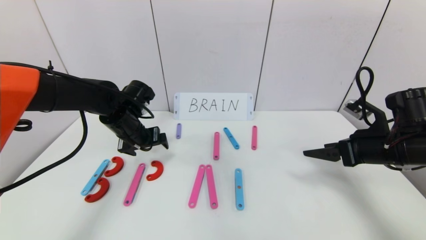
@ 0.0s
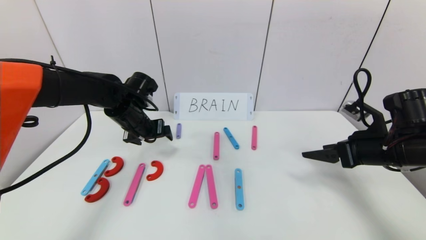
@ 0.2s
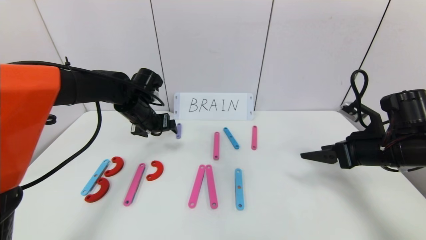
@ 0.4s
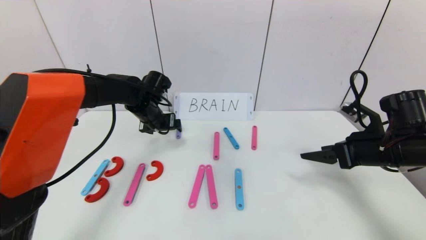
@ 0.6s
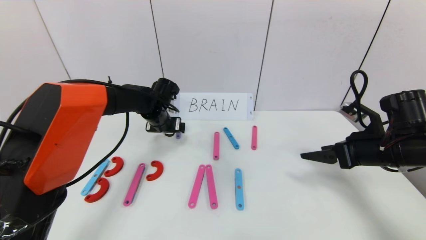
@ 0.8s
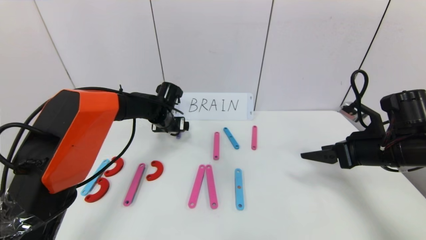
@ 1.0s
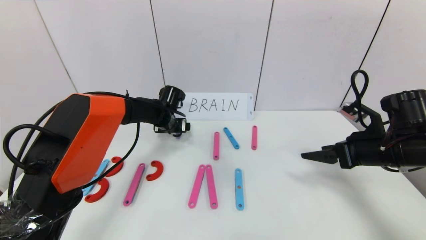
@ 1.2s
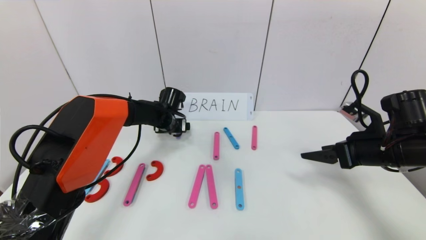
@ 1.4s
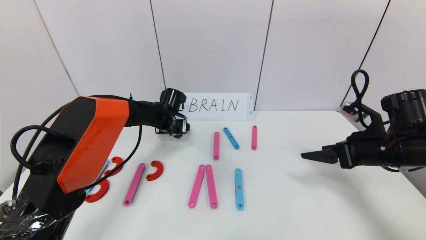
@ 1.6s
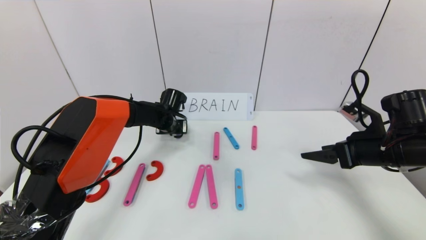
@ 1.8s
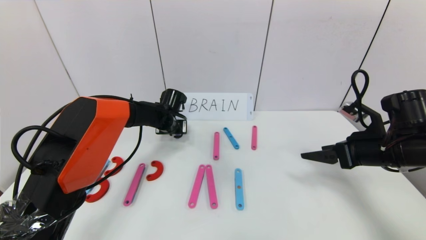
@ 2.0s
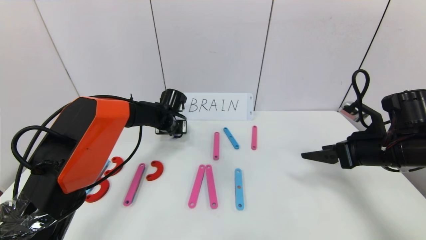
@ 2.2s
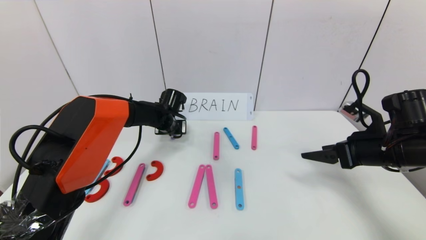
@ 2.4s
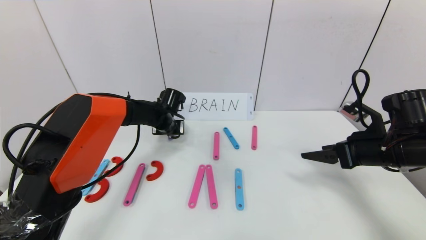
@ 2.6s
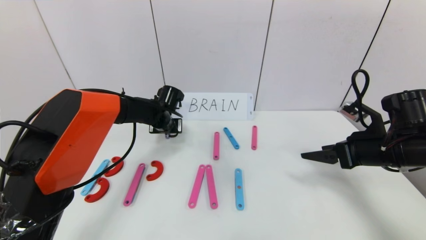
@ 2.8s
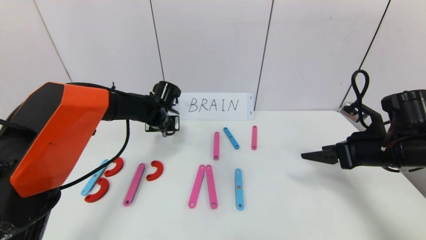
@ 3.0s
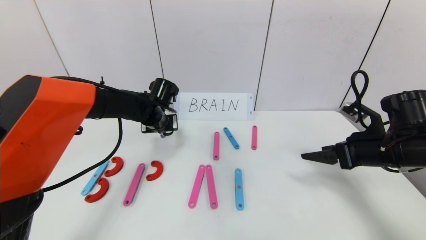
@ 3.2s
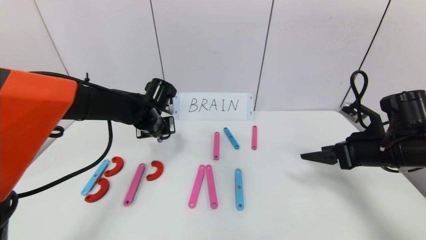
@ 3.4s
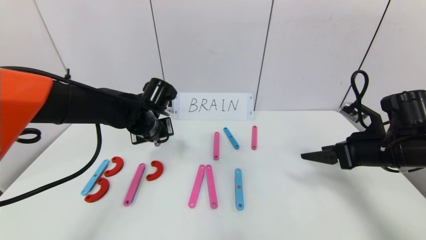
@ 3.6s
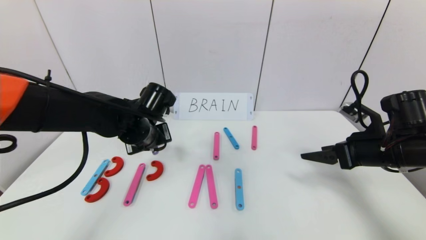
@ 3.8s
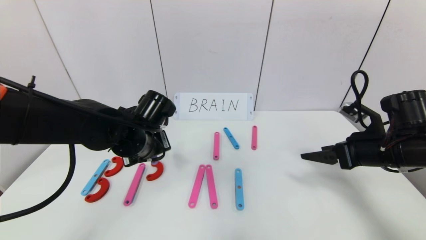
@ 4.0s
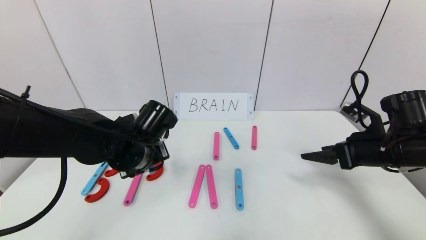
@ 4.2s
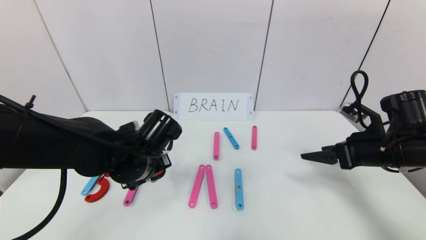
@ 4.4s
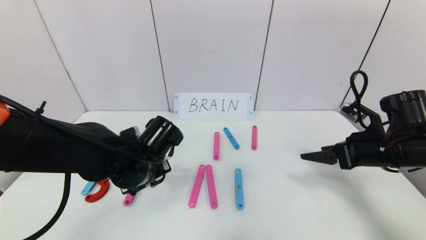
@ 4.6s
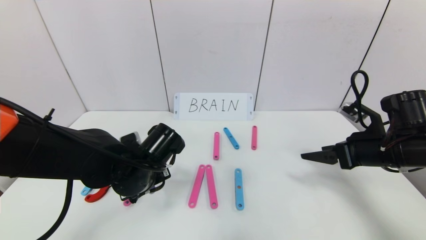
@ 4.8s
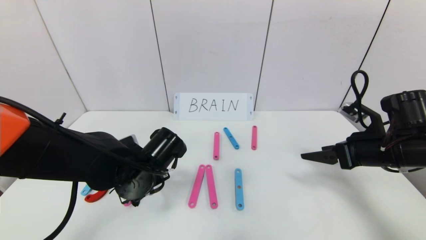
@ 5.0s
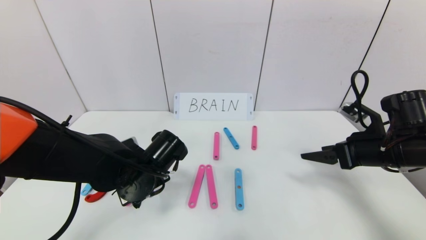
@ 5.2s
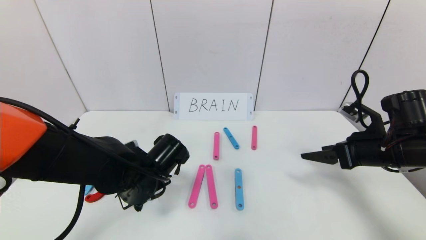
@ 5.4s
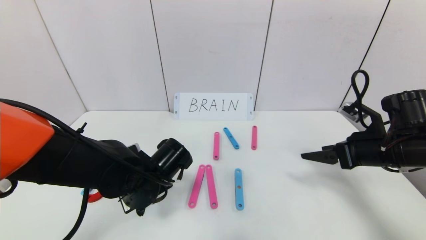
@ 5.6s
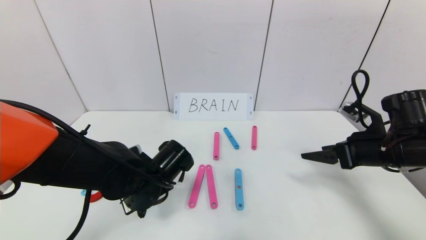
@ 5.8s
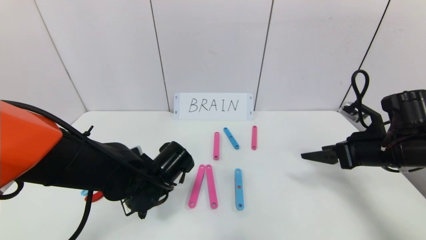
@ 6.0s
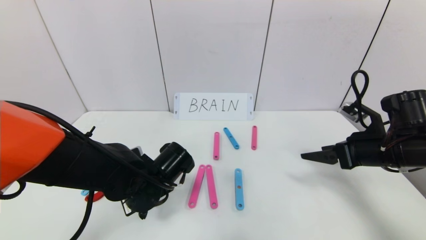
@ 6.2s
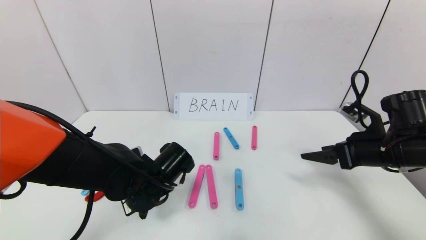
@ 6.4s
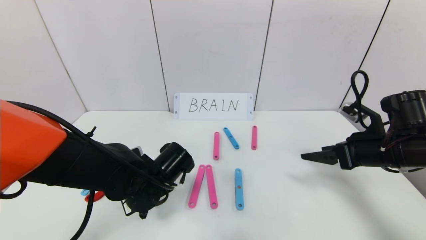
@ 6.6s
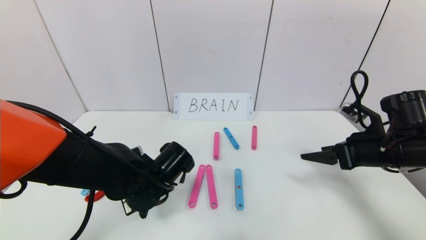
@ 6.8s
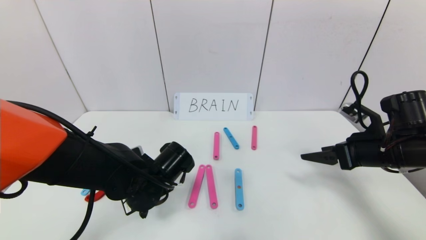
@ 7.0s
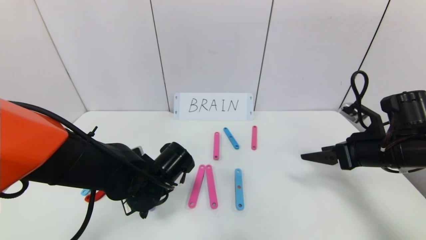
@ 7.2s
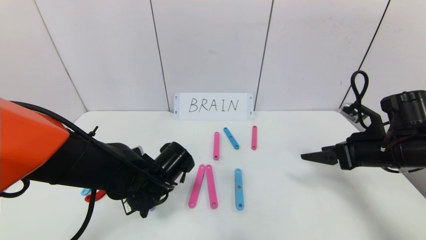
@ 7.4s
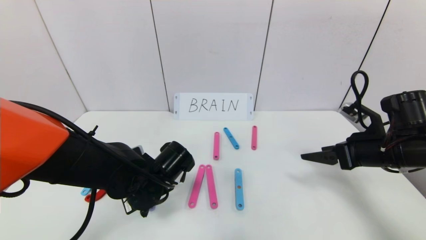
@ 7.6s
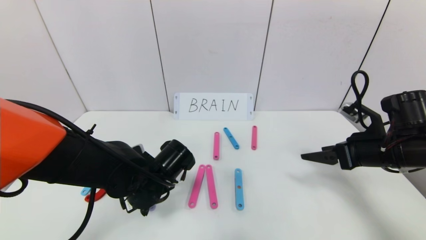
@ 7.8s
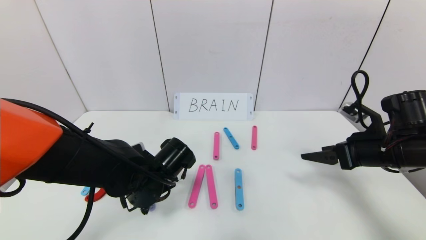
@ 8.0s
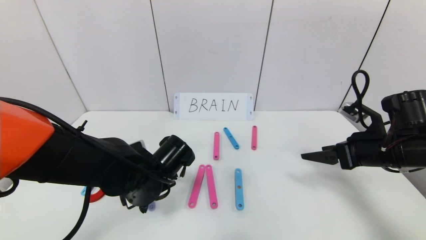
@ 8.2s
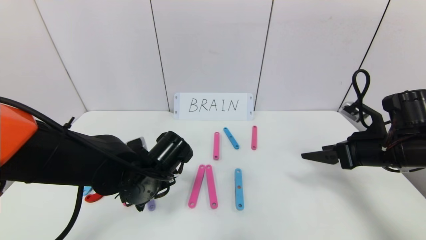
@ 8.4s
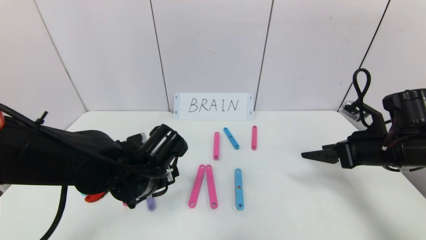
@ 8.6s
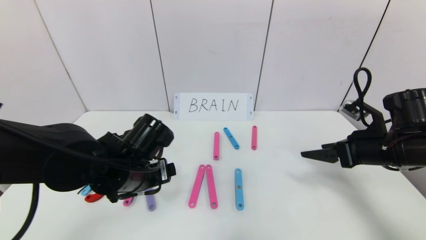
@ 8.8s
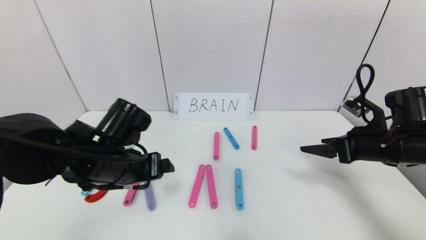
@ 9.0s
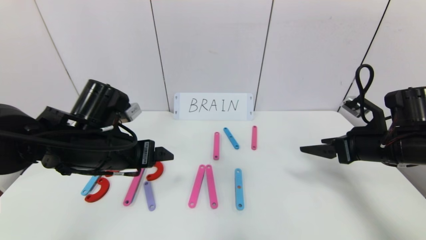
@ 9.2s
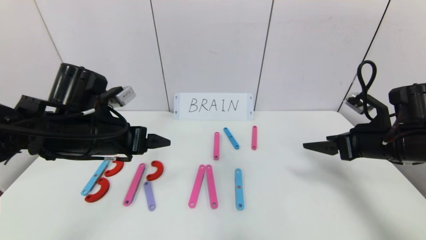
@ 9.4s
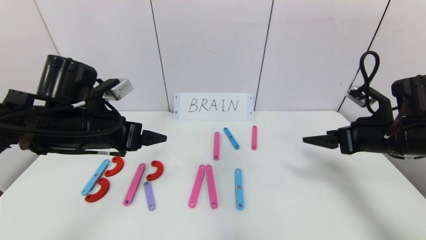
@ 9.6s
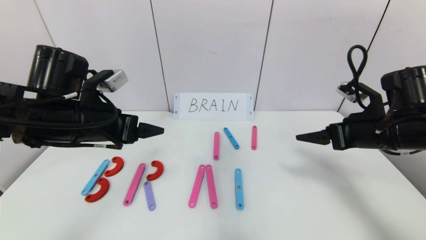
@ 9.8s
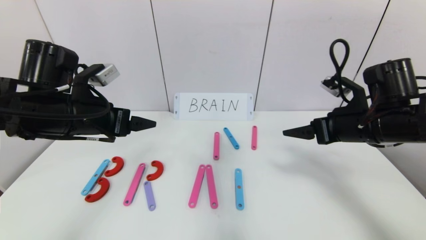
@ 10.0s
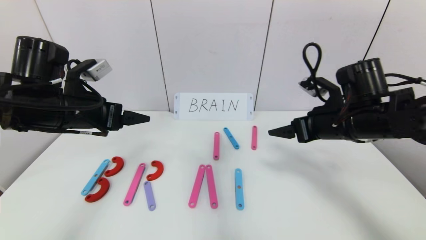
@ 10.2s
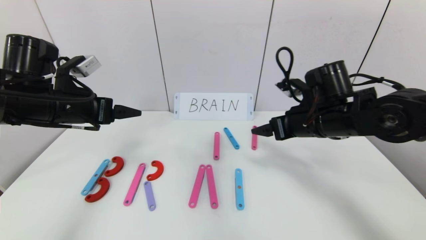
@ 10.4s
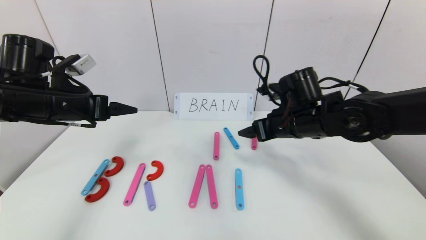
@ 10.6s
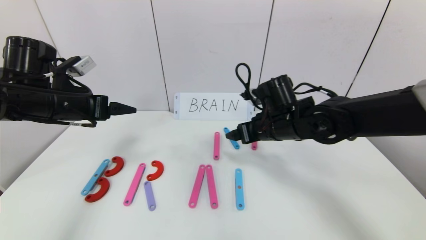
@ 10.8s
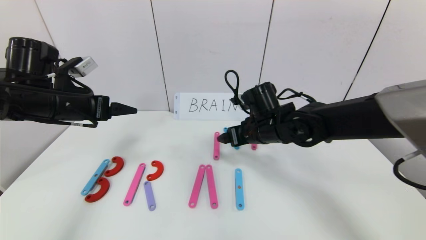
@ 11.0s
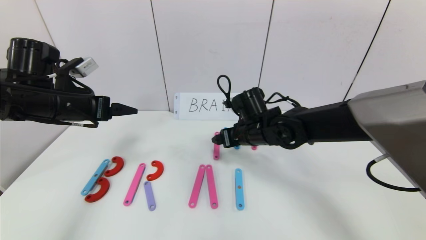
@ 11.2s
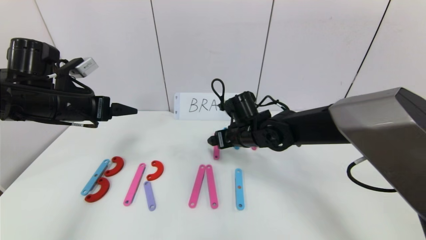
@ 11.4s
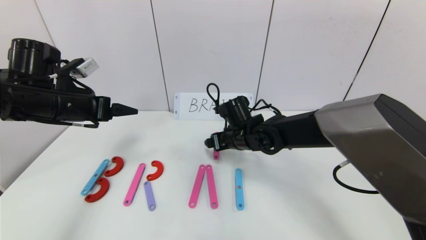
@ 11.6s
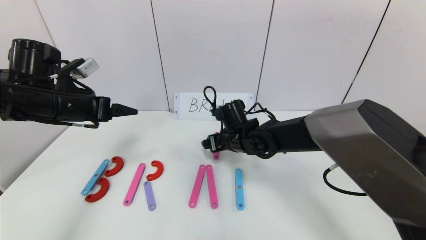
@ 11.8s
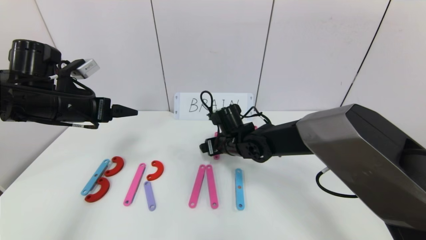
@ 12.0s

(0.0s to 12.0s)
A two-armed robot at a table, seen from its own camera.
Task of the whole recording: rearrange the word baai as brain.
Step, 0.0s - 7.8s: Place the character R between first character B and third character A.
0.0s - 1.6s: The left gripper is displaced forward, downward and to the right by some 15 cm.
1.6s - 3.0s: The left gripper changes place by roughly 5 cm, and closes.
3.0s - 4.4s: The left gripper shifts roughly 20 cm backward.
4.4s - 6.0s: The left gripper shifts about 5 cm downward.
6.0s - 7.6s: The left gripper opens.
7.6s - 9.0s: The left gripper heads upward, covering roughly 10 cm.
9.0s - 10.4s: The left gripper goes some 15 cm to the left and upward. Meanwhile the right gripper heads to the left, covering some 10 cm.
10.4s - 12.0s: The right gripper travels to the left, downward and forward by about 20 cm.

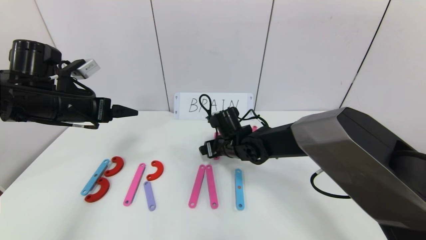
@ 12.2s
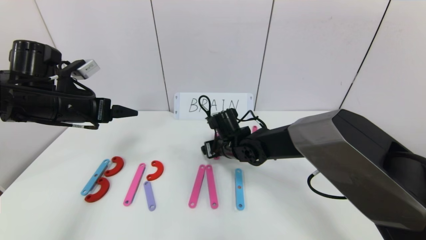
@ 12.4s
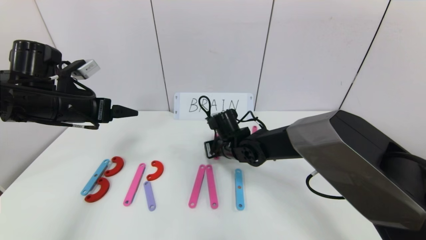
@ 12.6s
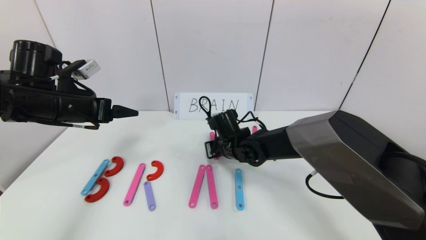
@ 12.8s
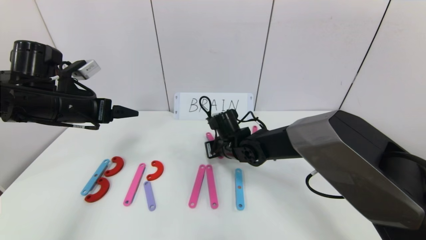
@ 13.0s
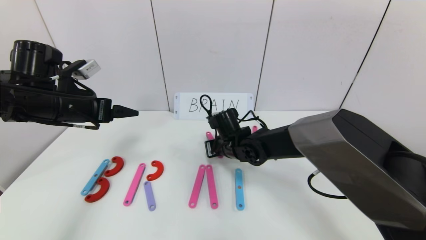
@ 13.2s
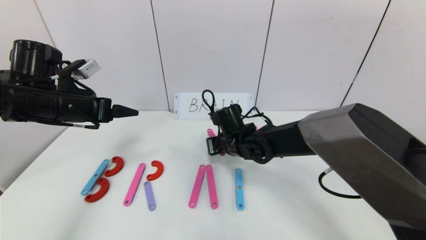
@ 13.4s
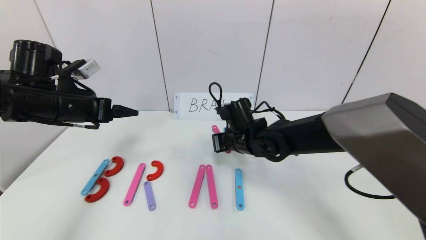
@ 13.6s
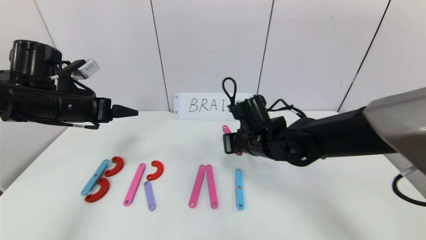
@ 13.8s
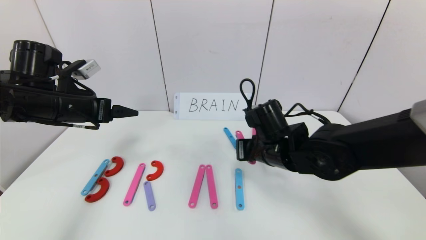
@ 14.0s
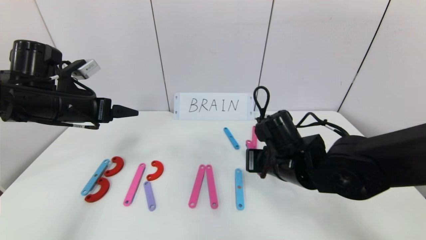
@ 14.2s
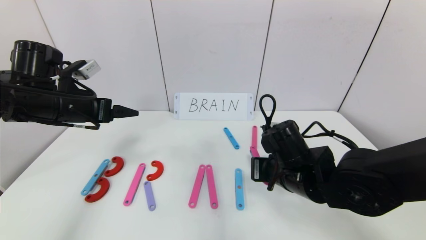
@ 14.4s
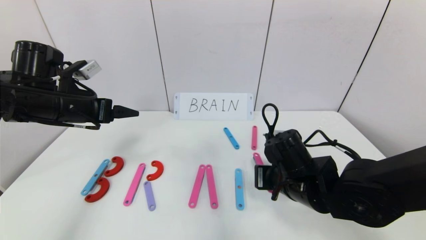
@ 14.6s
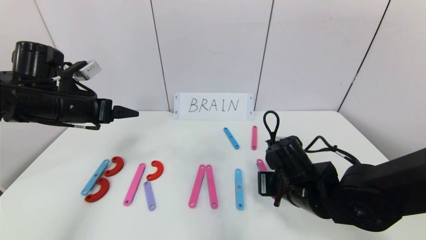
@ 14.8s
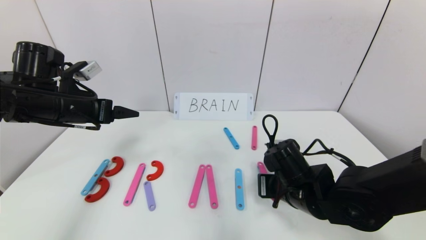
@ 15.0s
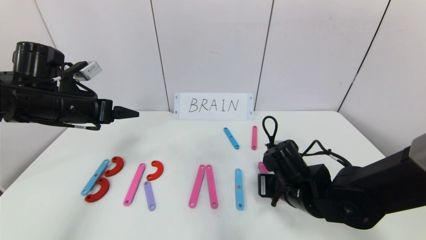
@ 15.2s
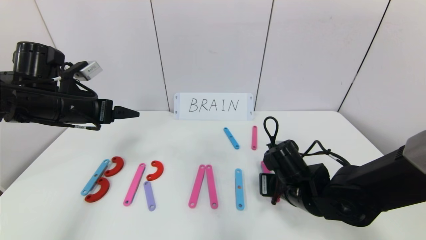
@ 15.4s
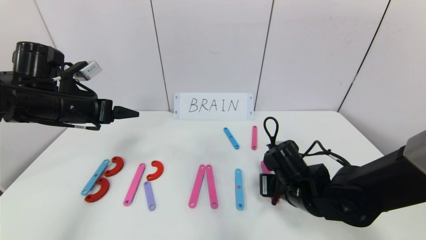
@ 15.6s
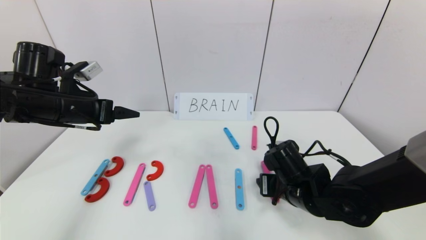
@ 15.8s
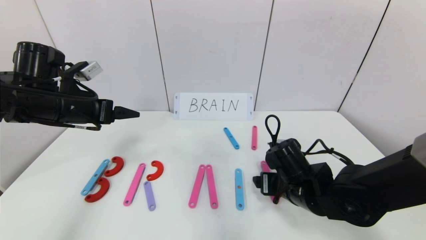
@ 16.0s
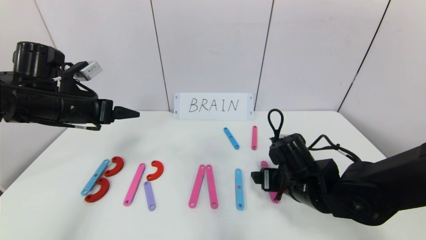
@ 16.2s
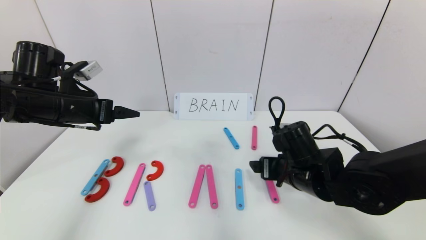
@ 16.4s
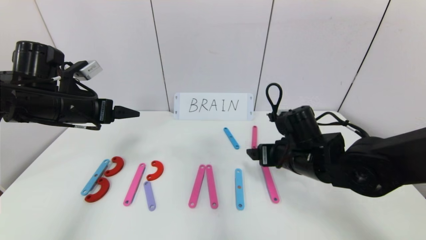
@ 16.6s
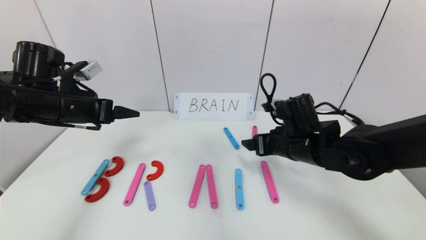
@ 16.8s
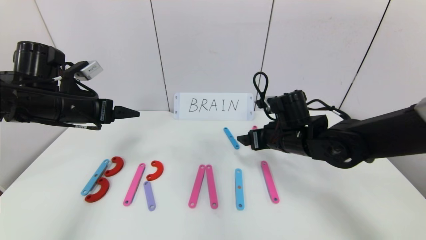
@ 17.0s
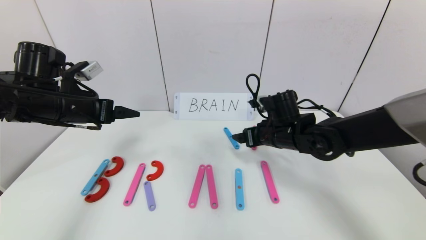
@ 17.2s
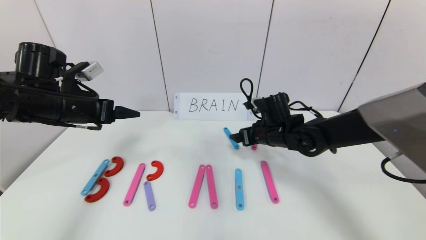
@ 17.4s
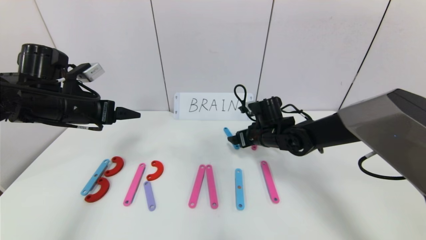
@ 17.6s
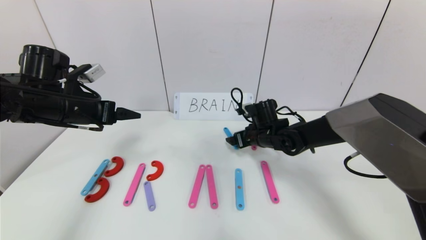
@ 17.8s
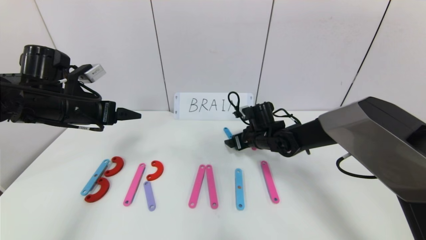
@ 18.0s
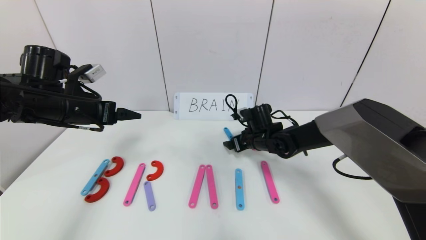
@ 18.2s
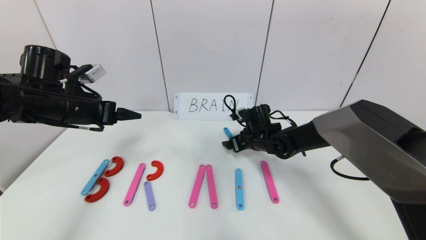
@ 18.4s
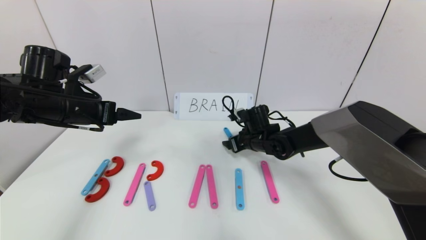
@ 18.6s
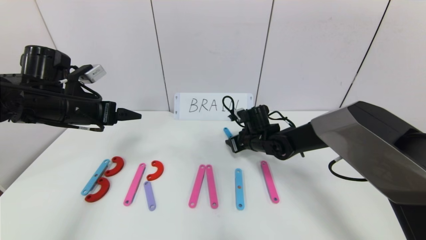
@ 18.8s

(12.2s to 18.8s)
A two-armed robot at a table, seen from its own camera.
Task of the whole recording: rearrange the word baai as brain.
12.2s - 13.8s: The right gripper is displaced upward, backward and to the right by some 10 cm, and closes up.
13.8s - 15.4s: The right gripper is displaced backward, to the right and downward by roughly 10 cm.
15.4s - 17.2s: The right gripper travels forward and upward by some 10 cm, and opens its fingers.
17.2s - 18.8s: The right gripper travels downward and forward by approximately 10 cm, and closes its fingers.
